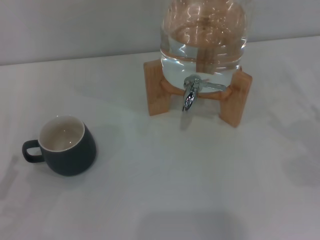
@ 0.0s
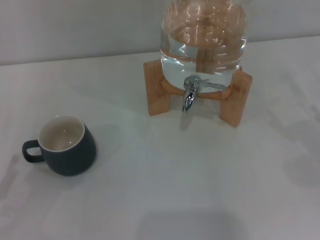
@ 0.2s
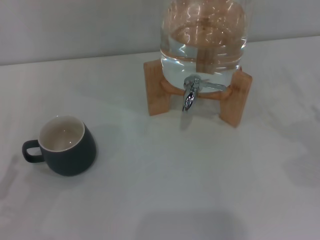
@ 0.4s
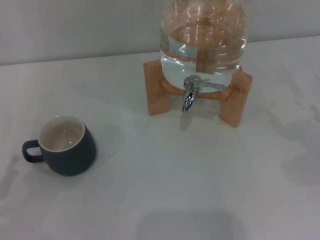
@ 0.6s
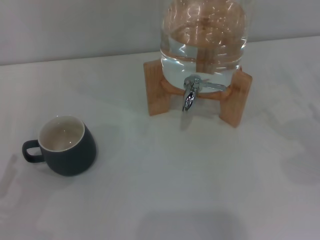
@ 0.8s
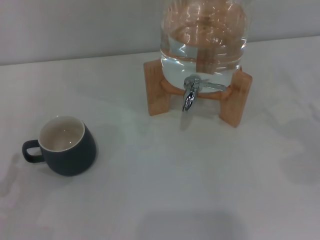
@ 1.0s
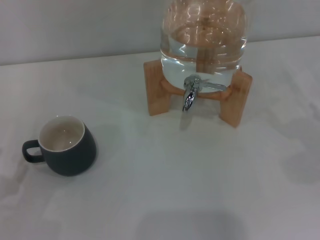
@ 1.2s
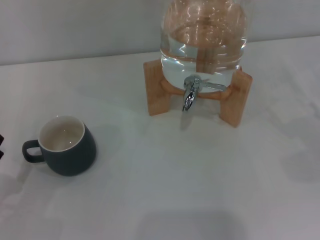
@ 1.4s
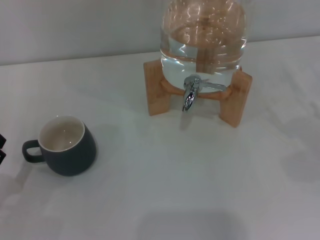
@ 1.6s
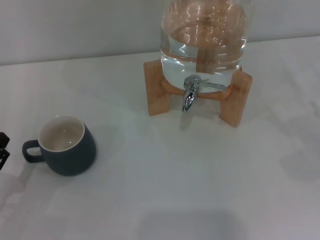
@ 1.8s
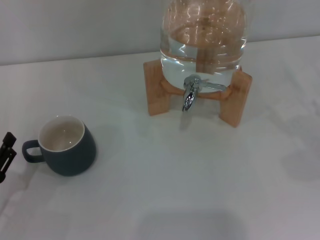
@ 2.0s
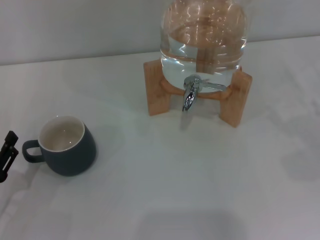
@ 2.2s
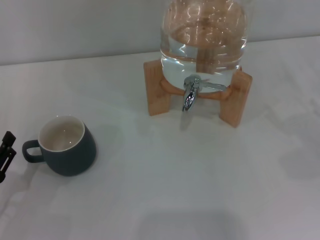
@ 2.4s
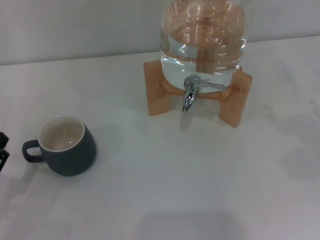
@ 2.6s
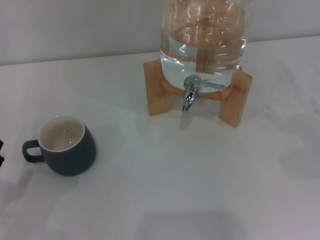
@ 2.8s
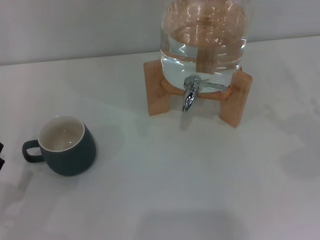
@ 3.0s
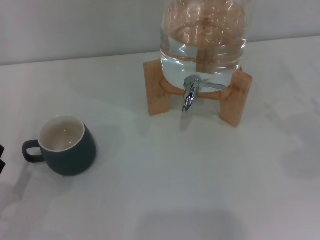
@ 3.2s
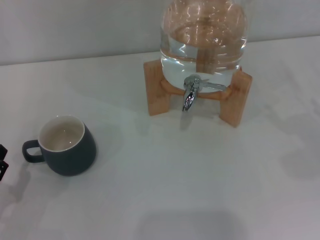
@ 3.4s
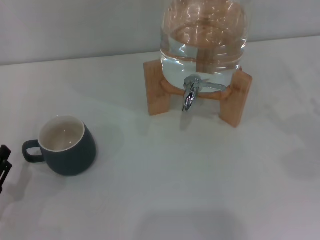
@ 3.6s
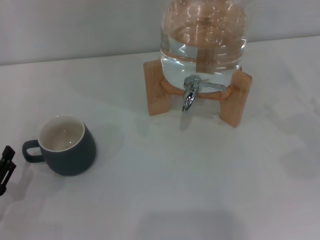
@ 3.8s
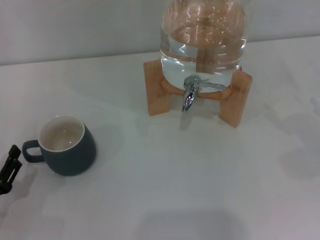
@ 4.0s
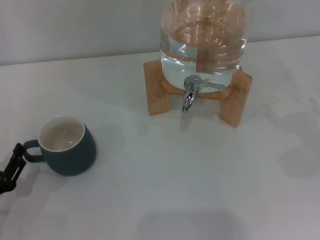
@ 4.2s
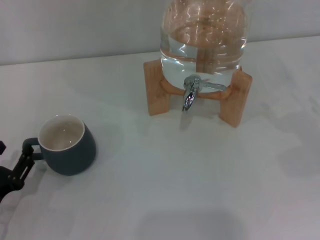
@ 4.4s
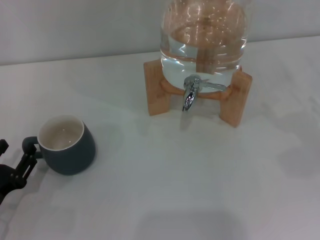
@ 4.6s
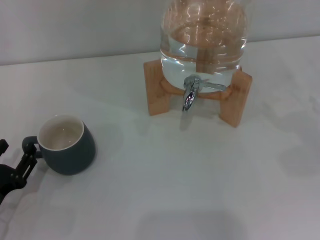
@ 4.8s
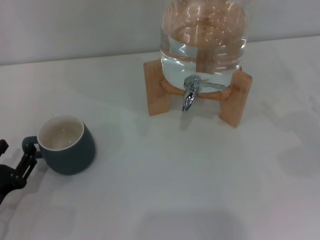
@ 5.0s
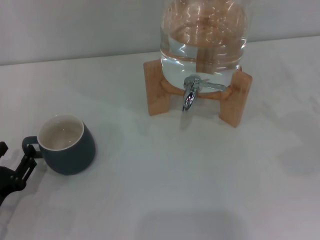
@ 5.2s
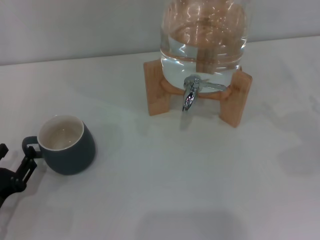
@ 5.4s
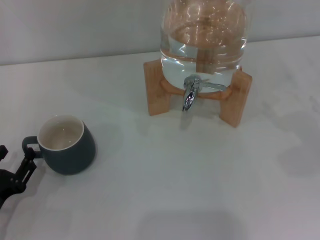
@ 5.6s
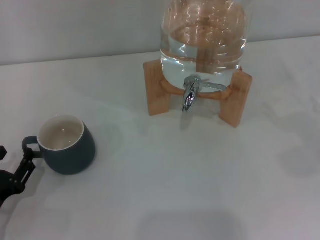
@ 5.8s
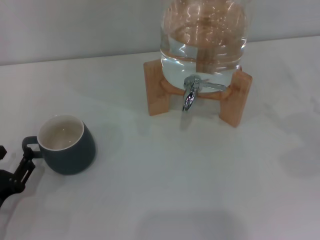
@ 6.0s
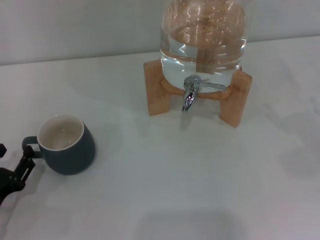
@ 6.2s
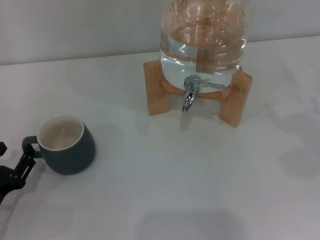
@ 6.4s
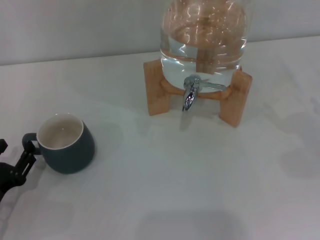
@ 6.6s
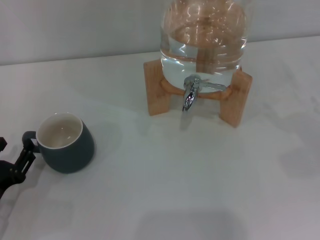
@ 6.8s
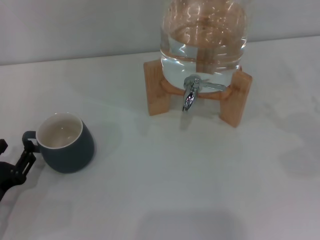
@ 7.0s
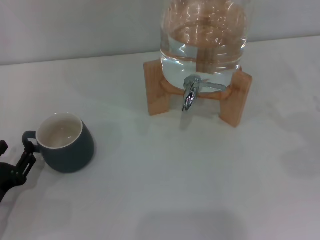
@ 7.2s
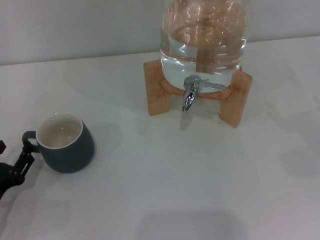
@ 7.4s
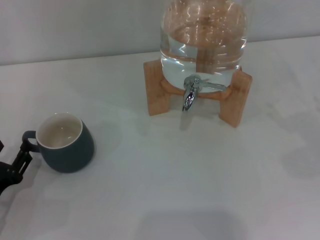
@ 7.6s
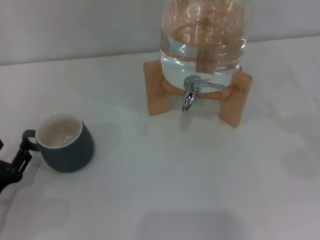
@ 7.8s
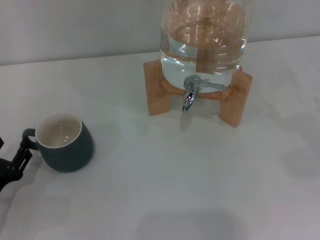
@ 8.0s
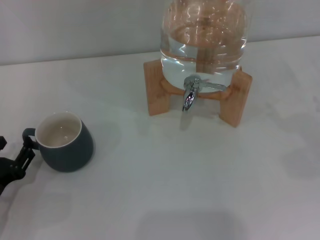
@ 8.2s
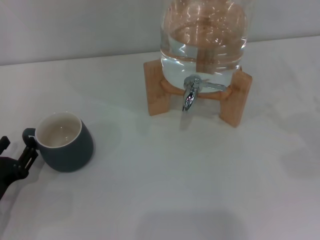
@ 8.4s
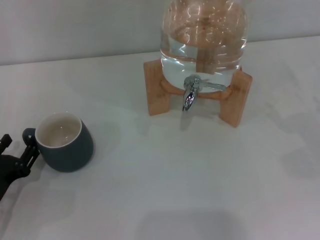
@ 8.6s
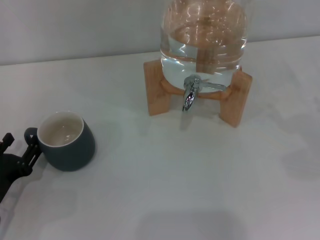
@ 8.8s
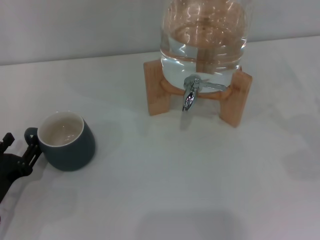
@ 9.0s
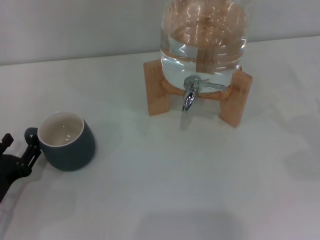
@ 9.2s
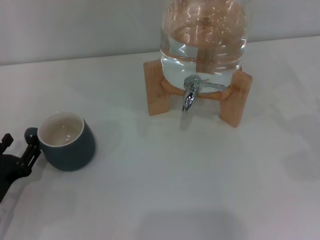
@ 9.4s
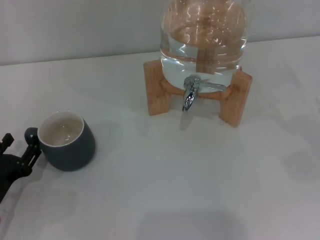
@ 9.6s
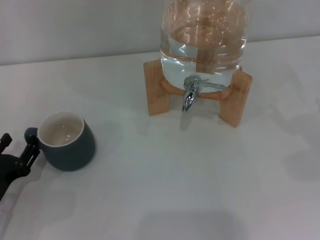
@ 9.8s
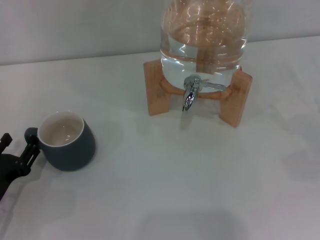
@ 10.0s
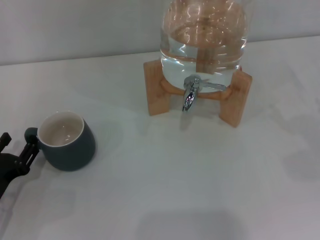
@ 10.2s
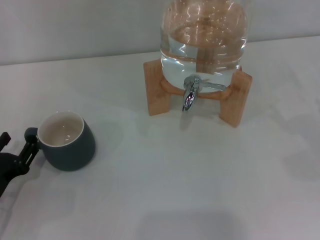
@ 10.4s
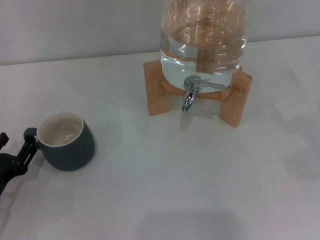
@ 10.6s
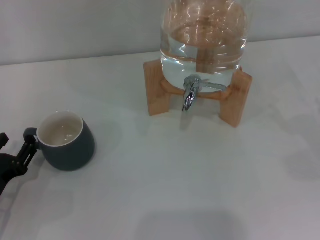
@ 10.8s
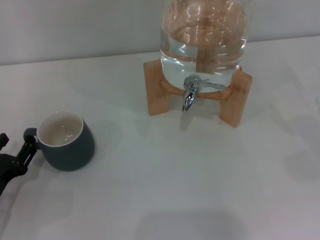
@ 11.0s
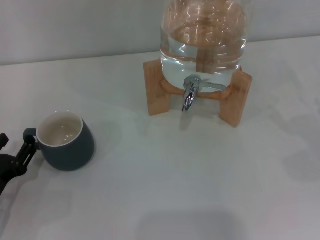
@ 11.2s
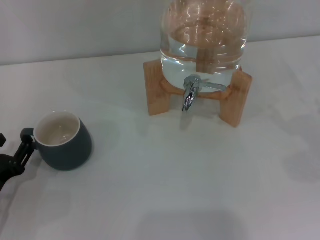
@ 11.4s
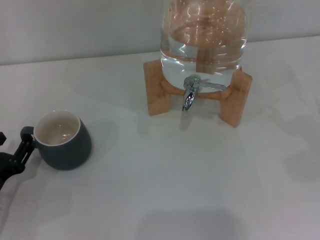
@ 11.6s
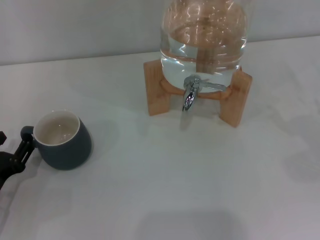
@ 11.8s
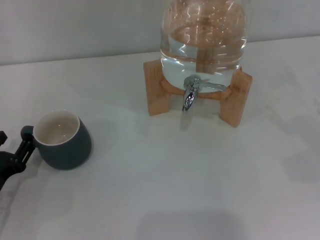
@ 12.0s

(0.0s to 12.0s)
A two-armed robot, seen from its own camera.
Task of the whole recording: the left gripper pick up the black cup and place it horizontally under the faucet, the right gripper turn on the faucet to fill the cup, and then turn off the faucet.
3.0s - 4.4s: The grippers stay close to where they were, moving slightly.
4.4s - 6.0s: Both grippers stay put.
6.0s - 9.0s: The grippers move only a little.
9.0s - 12.0s: The two grippers keep their place.

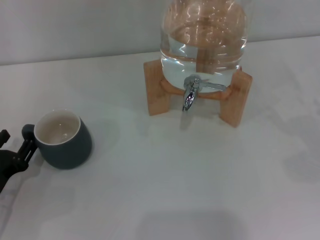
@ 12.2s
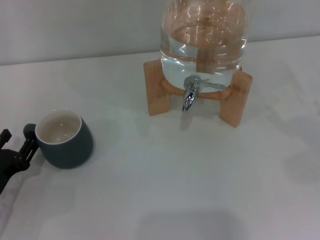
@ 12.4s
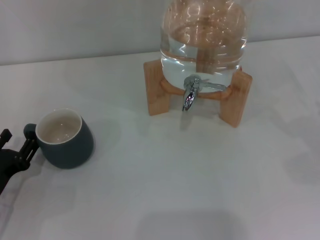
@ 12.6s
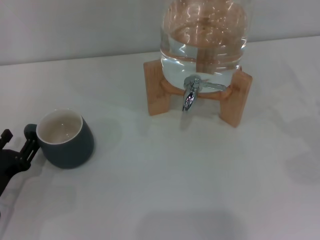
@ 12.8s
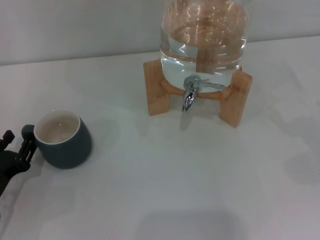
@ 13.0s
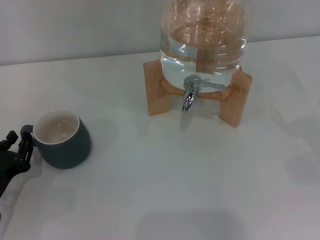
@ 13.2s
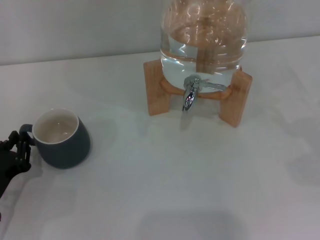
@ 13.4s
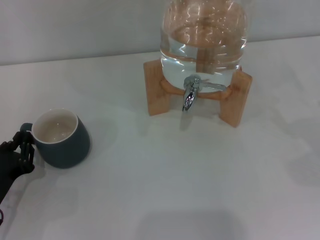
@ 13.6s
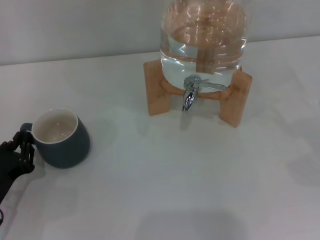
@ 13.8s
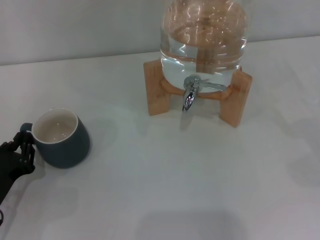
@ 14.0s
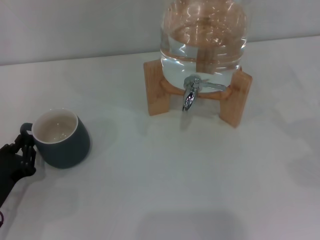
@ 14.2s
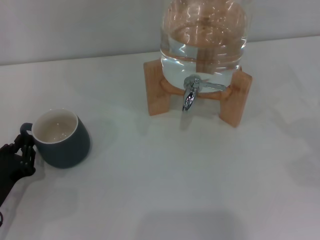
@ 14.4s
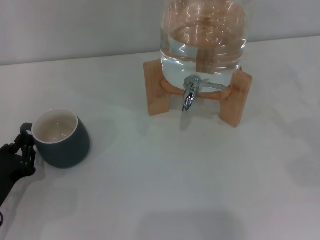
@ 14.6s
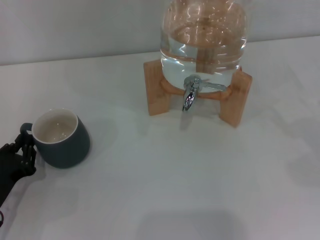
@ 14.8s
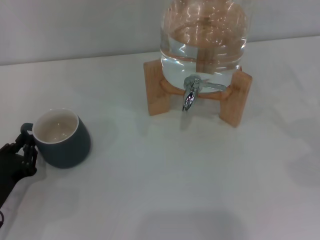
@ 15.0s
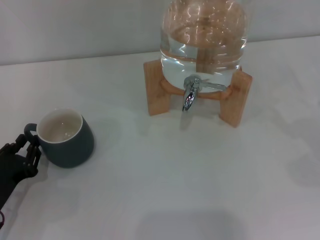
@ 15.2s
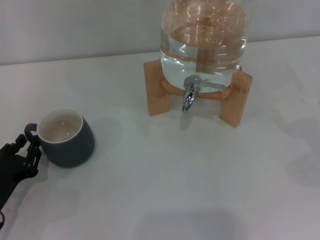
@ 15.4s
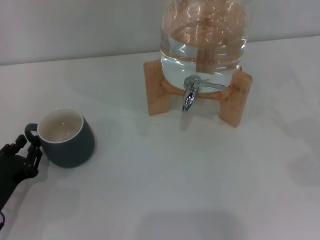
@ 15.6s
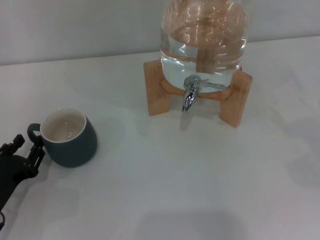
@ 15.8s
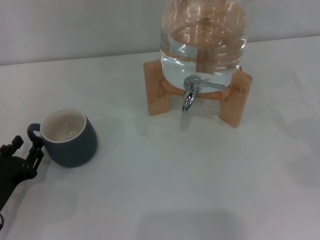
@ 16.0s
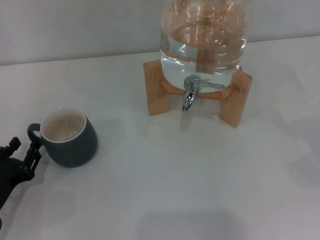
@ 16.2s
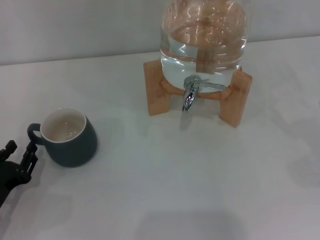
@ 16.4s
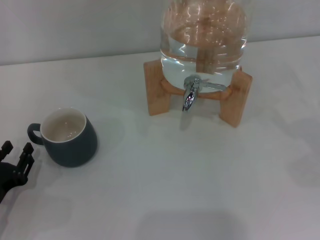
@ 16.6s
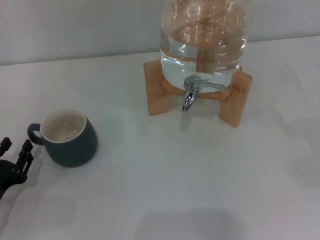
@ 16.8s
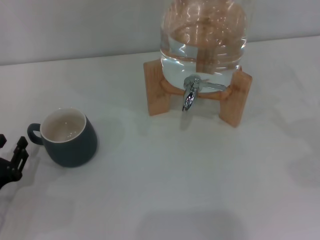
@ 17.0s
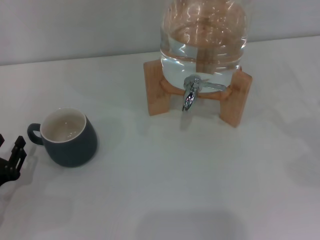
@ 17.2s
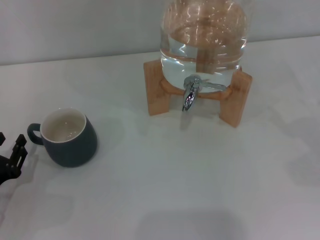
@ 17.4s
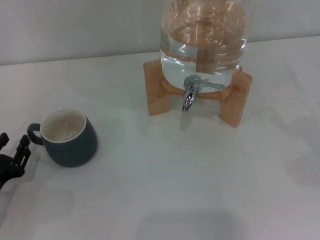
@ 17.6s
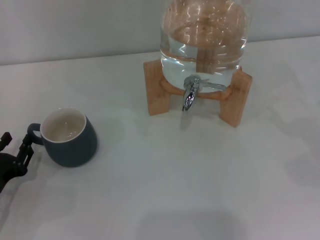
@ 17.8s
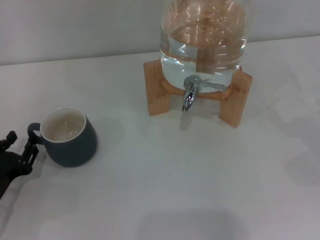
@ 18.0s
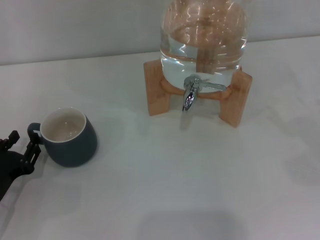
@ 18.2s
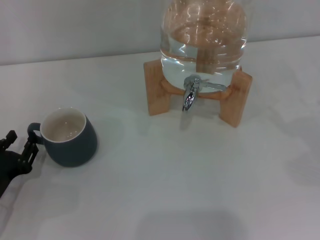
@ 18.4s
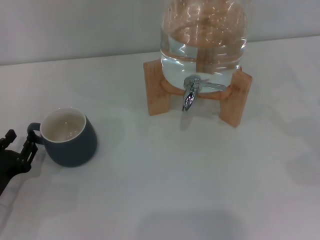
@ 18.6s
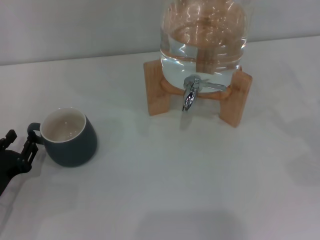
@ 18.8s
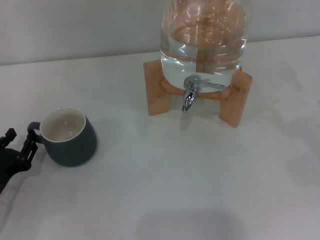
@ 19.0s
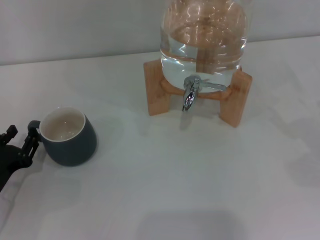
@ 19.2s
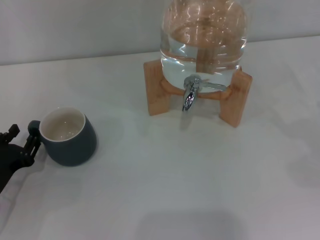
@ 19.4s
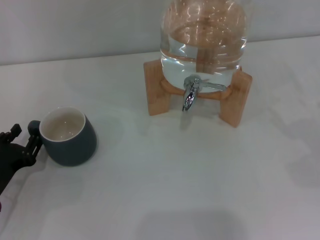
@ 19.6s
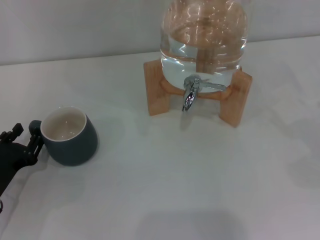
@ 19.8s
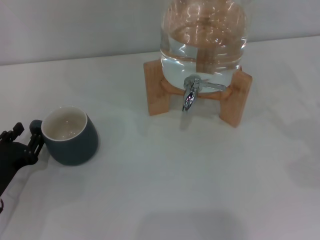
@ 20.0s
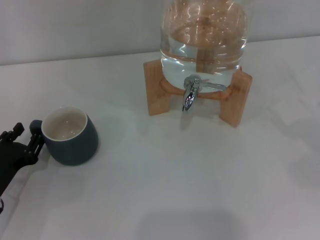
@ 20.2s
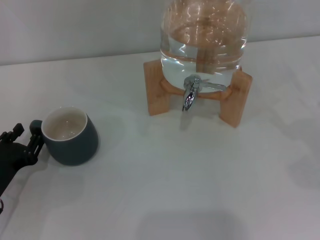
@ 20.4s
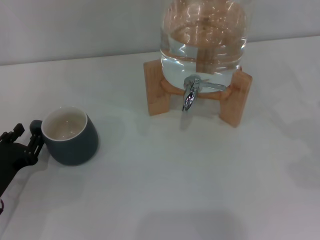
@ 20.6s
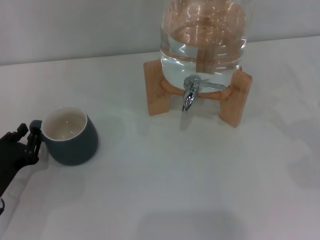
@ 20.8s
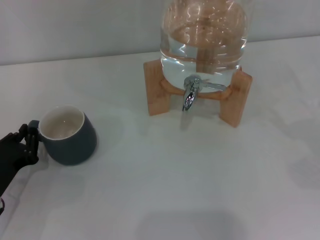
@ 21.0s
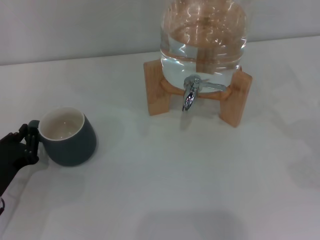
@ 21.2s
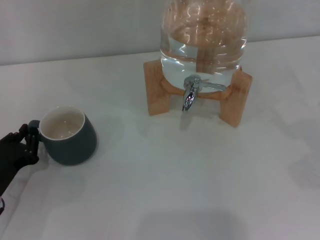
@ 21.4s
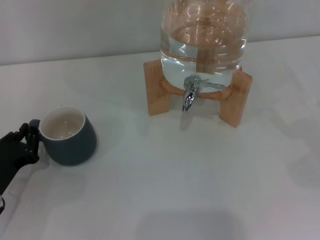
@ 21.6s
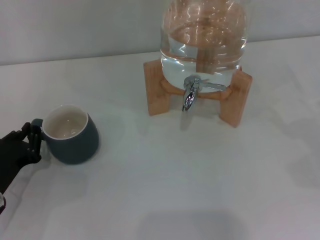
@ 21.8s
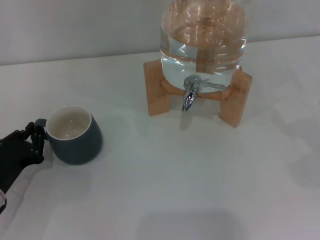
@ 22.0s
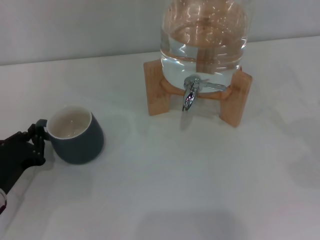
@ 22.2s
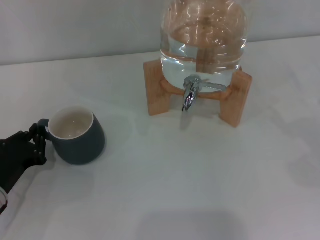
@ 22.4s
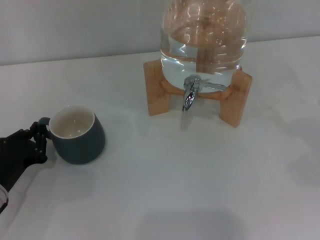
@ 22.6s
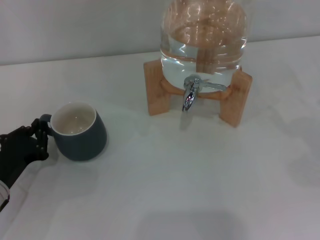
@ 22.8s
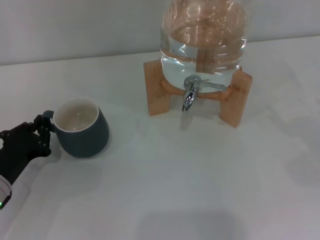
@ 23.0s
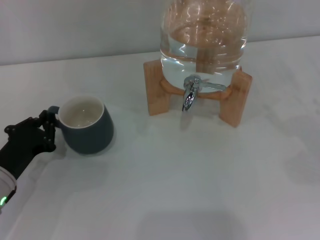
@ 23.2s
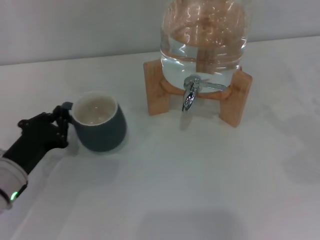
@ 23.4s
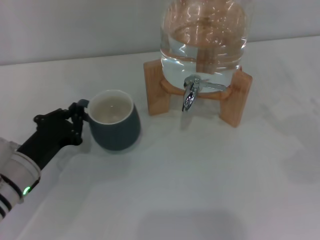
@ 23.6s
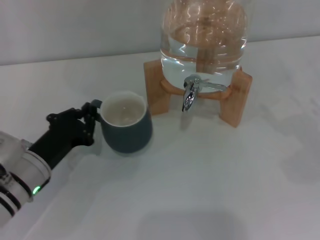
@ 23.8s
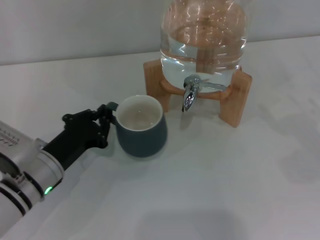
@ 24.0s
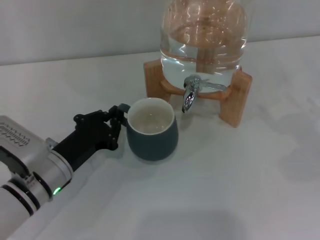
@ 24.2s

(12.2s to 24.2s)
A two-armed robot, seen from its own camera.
Task of the whole recording: the left gripper pick up the black cup and place it horizontally under the faucet, the right gripper turn on the faucet to fill the cup, and then turn off the faucet.
12.2s - 13.8s: The left gripper closes up.
13.8s - 15.2s: Both grippers stay about where they are.
15.2s - 16.6s: The left gripper opens its fingers.
16.6s - 19.8s: There are only small adjustments of the grippers.
19.8s - 21.2s: The left gripper closes up.
21.2s - 22.6s: There are only small adjustments of the grippers.
22.6s - 24.2s: The left gripper is displaced to the right by roughly 10 cm.
